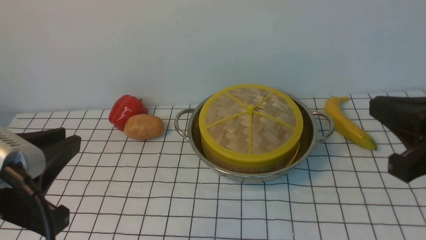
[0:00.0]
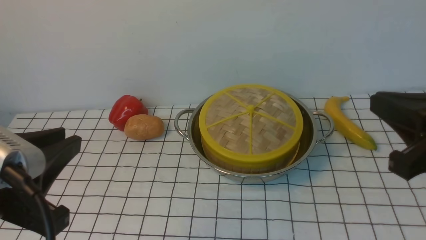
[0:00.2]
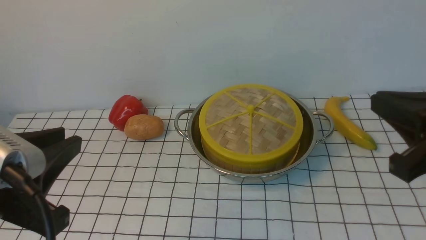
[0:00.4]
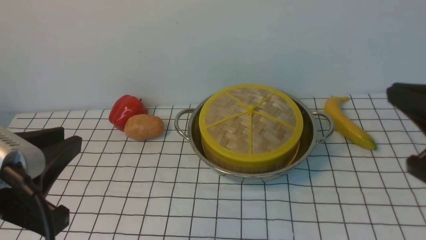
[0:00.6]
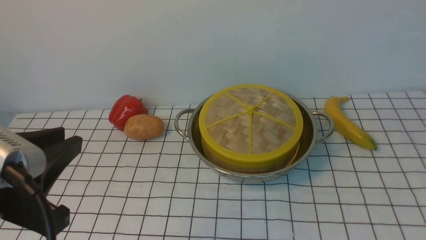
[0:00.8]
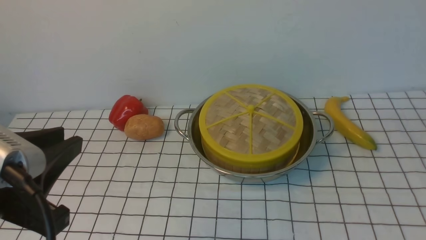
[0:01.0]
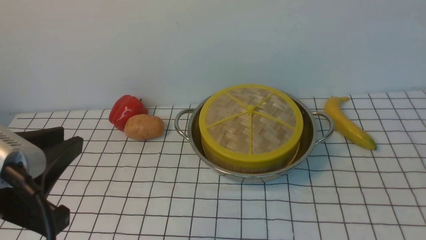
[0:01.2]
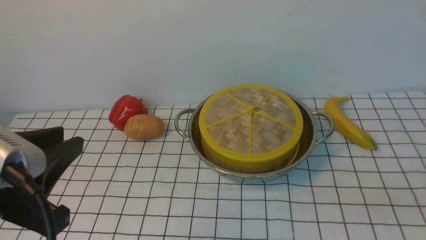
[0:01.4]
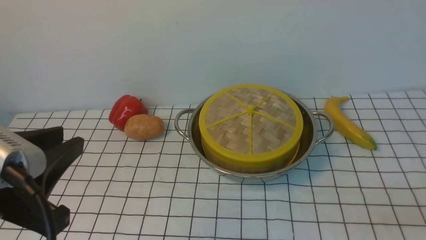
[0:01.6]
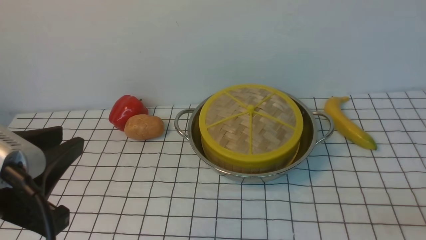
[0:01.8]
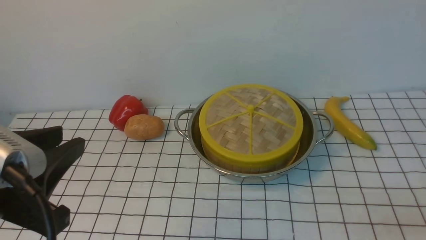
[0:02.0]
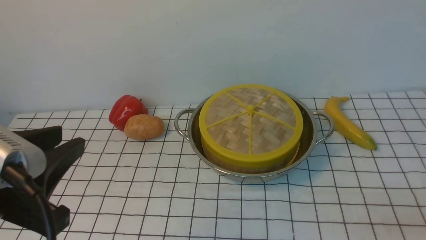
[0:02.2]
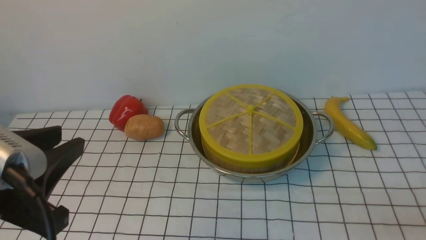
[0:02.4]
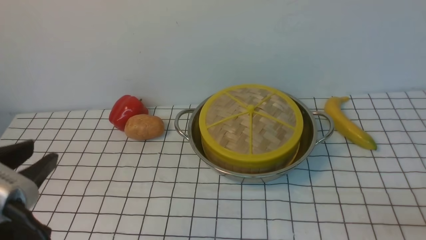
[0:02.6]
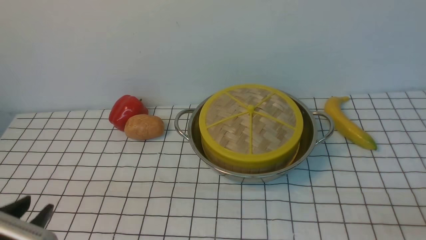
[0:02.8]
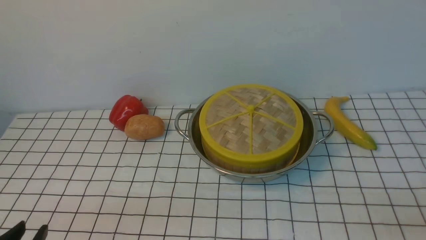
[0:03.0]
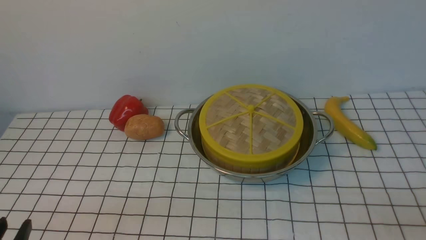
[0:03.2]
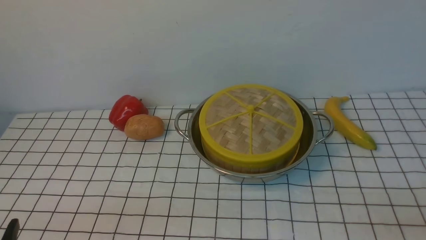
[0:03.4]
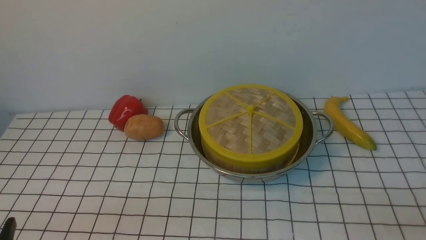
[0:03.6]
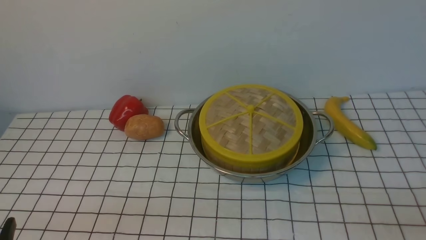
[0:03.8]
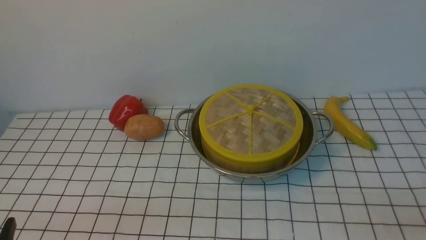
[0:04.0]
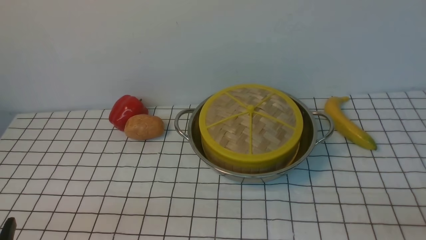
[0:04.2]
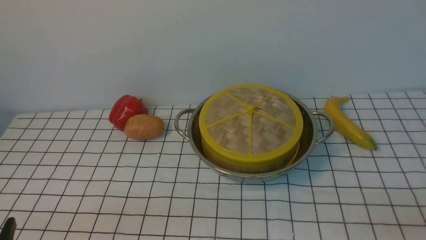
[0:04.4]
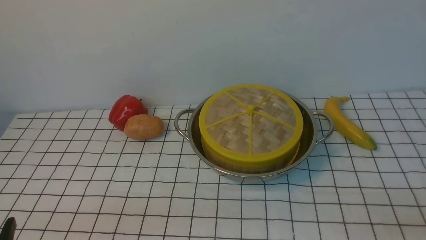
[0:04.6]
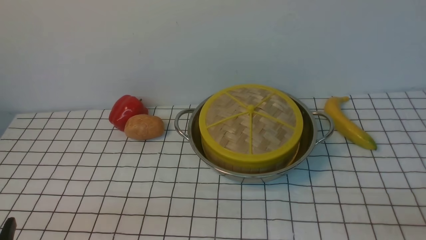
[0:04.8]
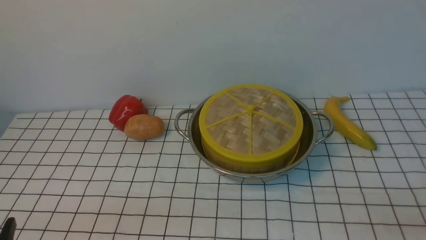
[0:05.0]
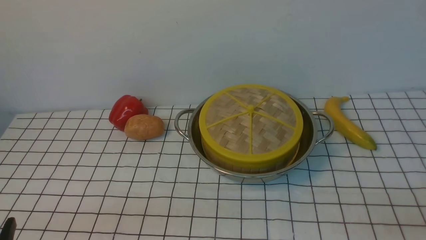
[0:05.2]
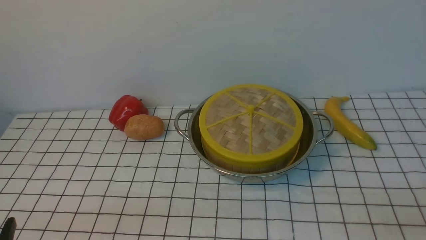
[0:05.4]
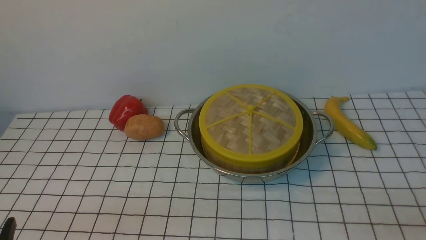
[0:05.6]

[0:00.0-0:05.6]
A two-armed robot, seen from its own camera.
Task of the whole recording: place the steamer in the pot on the white tablecloth, and put the lid on the steamer.
0:00.0 to 0:01.4: The right gripper goes roughly 15 cm downward, backward and to the right.
0:01.4 to 0:02.8: The left gripper is displaced downward by roughly 10 cm.
0:02.8 to 0:04.2: The left gripper ends up about 5 cm from where it was.
0:04.2 to 0:05.6: The two grippers keep their place.
